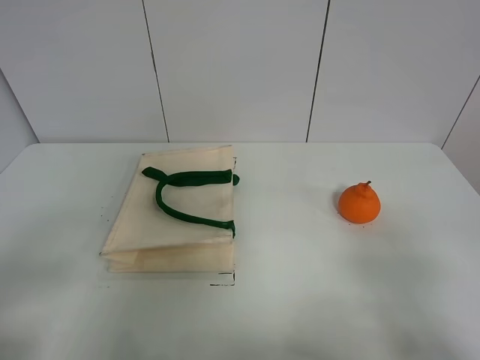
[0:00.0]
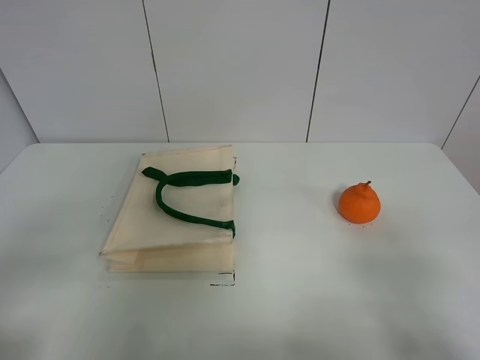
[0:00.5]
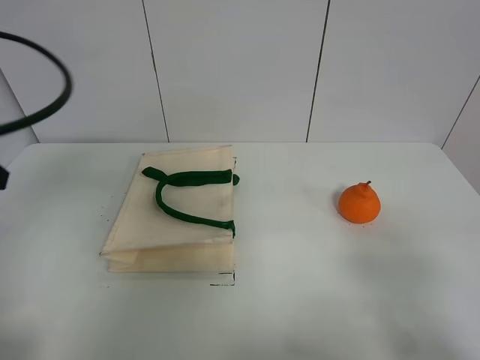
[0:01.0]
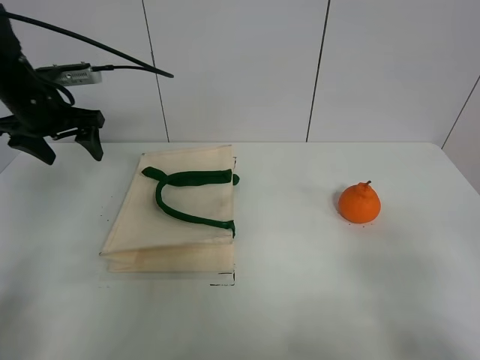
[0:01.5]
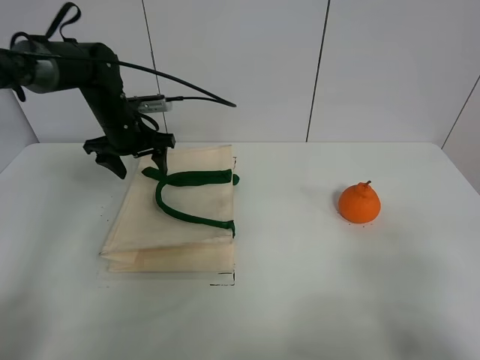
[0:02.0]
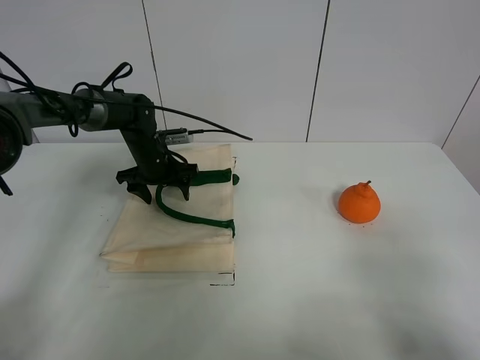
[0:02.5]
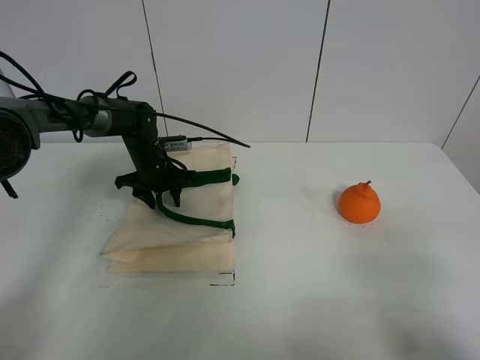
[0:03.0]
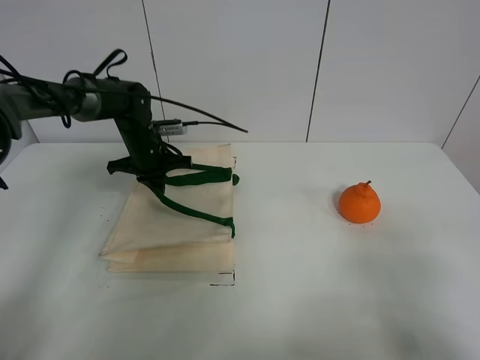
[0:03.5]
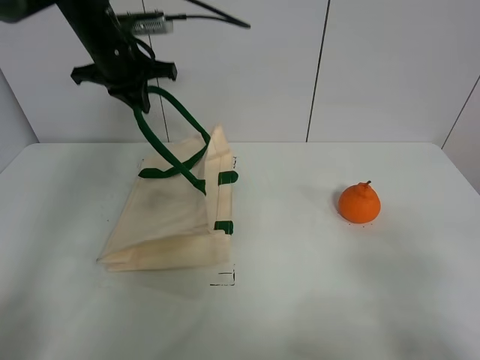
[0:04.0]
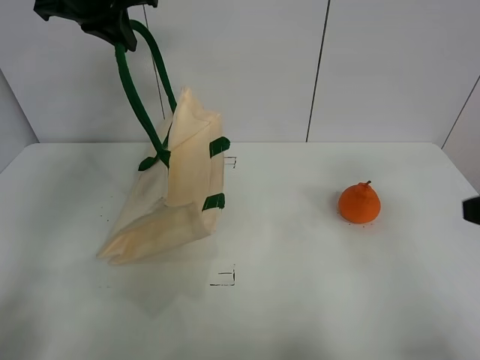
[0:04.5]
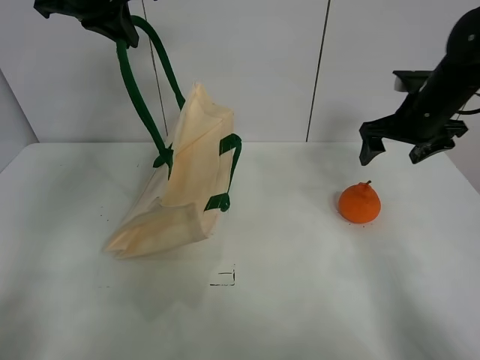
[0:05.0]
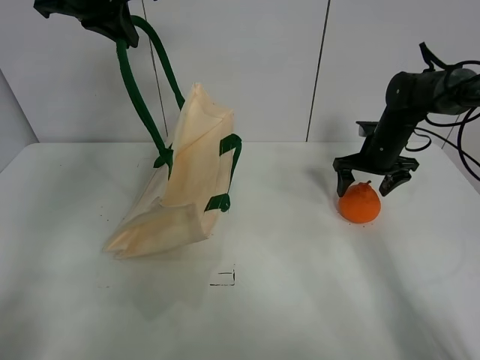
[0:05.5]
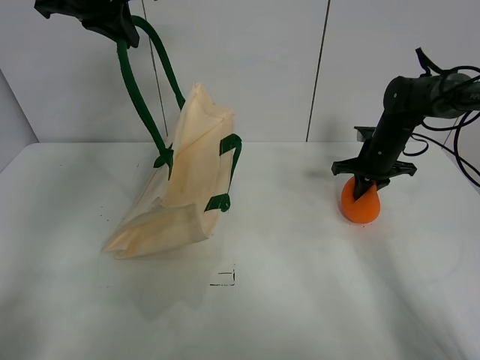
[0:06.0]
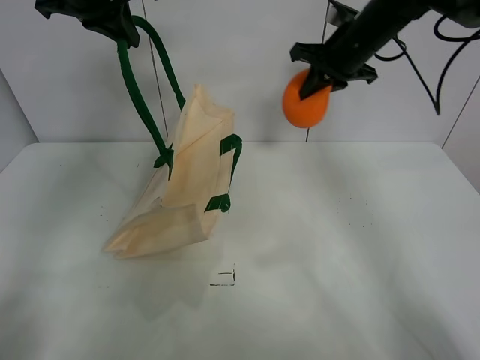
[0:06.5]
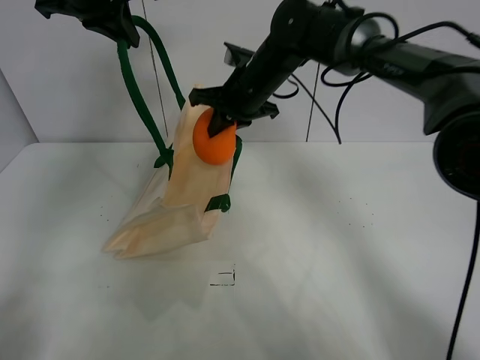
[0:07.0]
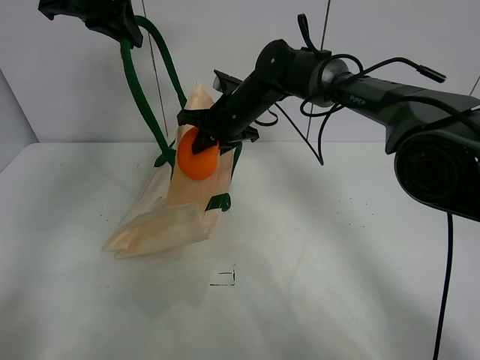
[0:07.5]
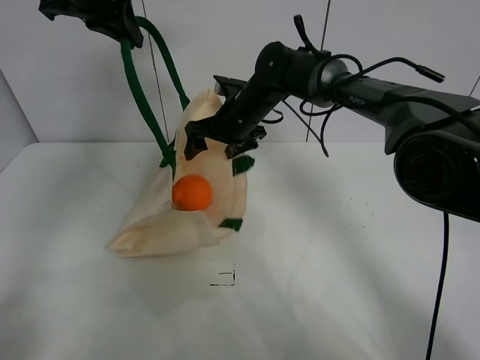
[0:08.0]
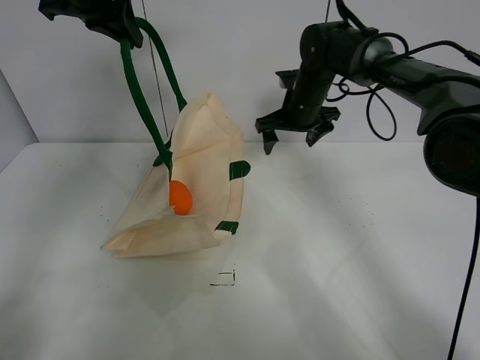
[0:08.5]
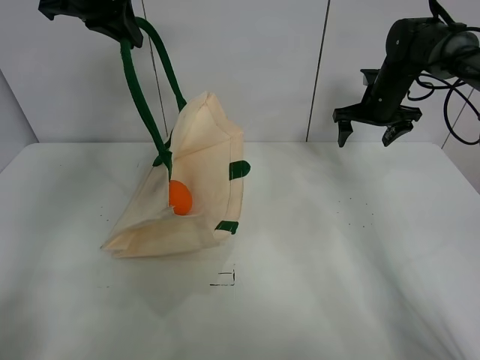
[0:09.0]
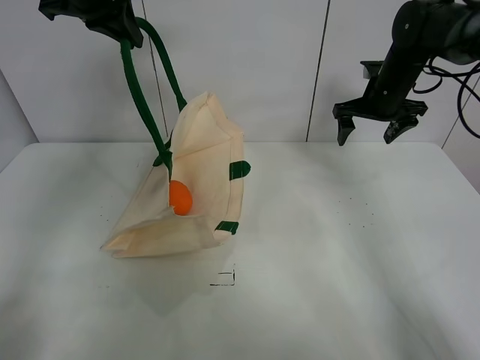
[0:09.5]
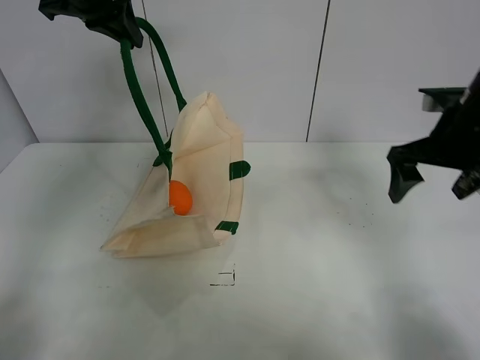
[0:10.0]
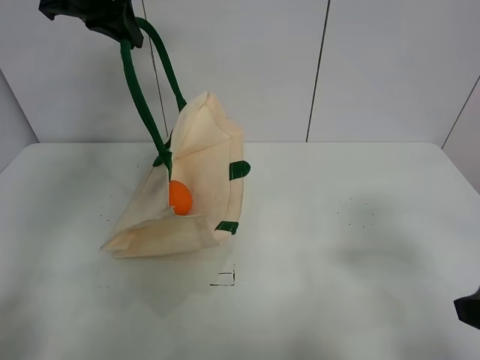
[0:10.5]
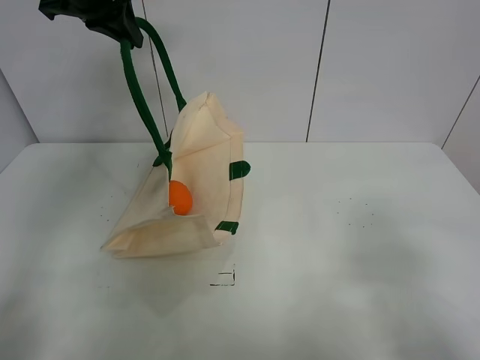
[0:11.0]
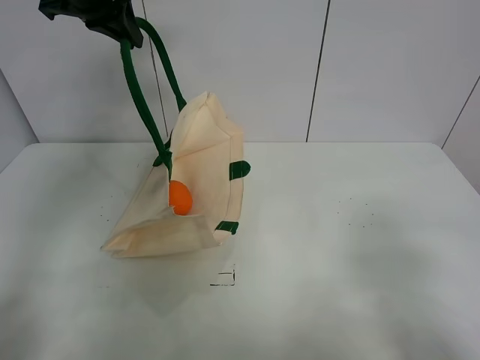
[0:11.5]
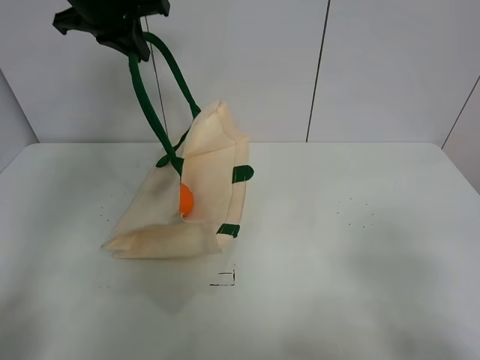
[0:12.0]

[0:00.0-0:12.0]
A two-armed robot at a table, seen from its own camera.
Task of the whole recording: open the white linen bag and put the orange in the bag.
Step, 0.0 to 4.0 s: Lift the handbag with left gripper.
Step, 4.5 to 5.5 s: Grasp the orange with right gripper.
Step, 6.0 to 8.0 s: Place the orange in the handbag with right gripper.
0.0 to 2.0 s: The left gripper moves forward, about 40 cm.
2.0 to 4.0 s: The left gripper is displaced upward by about 15 cm, and closes.
4.0 to 6.0 s: The right gripper travels forward by some 50 cm, and closes up, while the left gripper shifts some 10 cm upward.
6.0 to 8.0 s: The right gripper moves to the left, approximately 25 cm, and opens up.
8.0 to 10.0 s: The right gripper is displaced to the right and backward by roughly 30 cm.
10.0 to 12.0 s: The right gripper moves backward, about 25 cm.

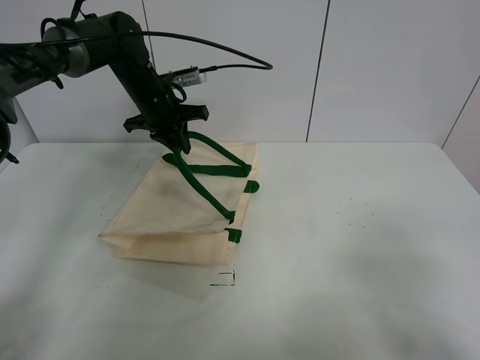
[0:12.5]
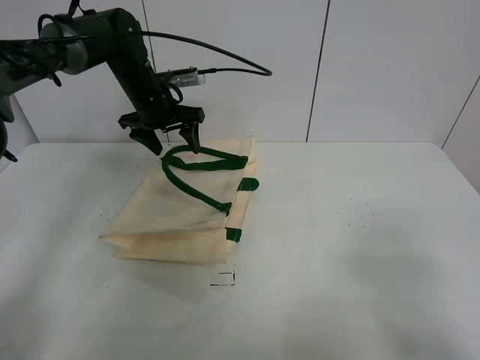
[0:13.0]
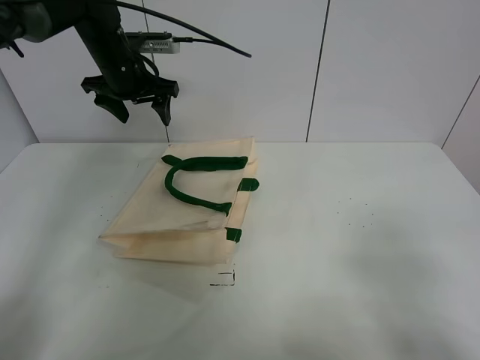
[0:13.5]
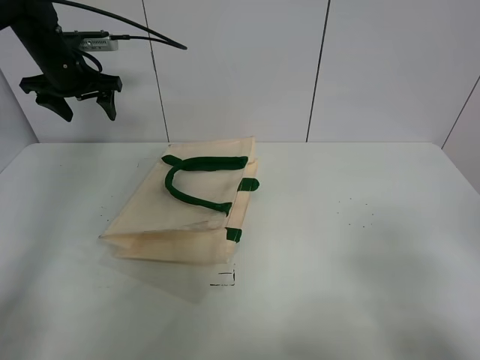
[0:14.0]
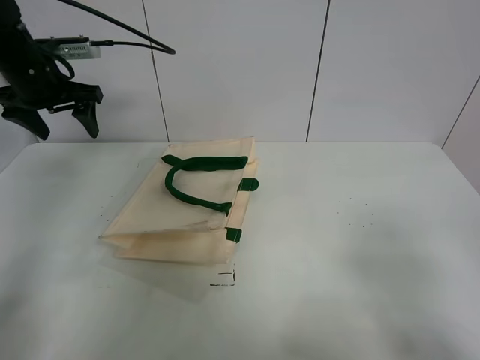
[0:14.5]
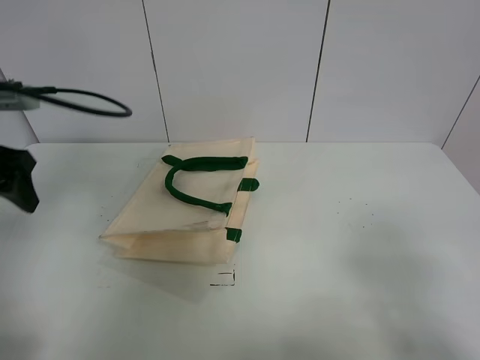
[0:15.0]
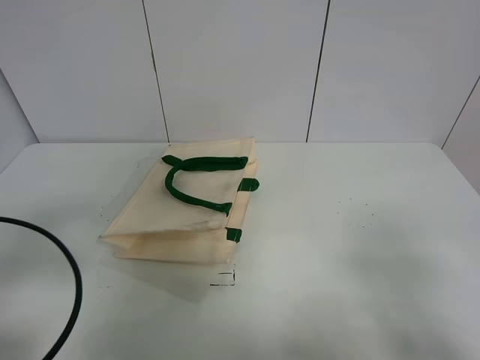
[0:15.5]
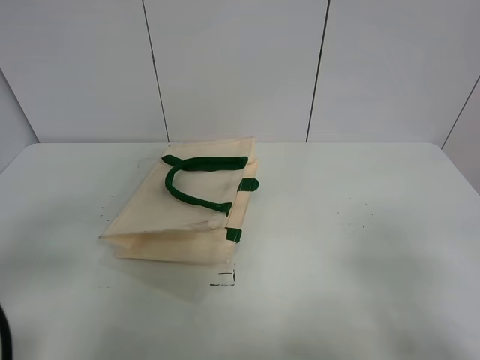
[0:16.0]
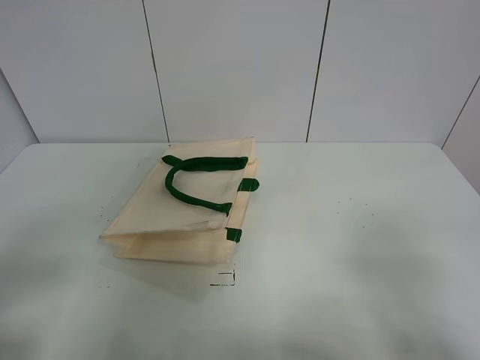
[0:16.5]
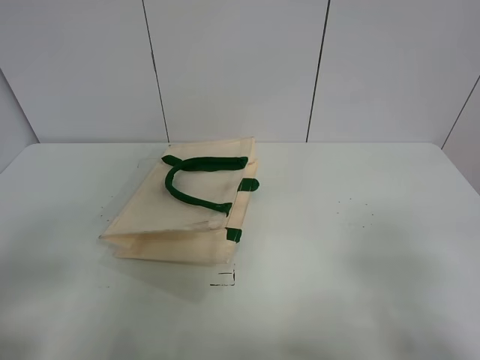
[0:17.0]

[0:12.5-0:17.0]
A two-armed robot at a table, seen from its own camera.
Task of the whole recording: open the white linen bag and put the orange in the bag.
12.5 to 14.5 s: The left gripper is displaced to the left, backward and upward by about 20 cm, and opens its fingers.
14.5 to 17.0 s: The left gripper moves backward, some 40 cm.

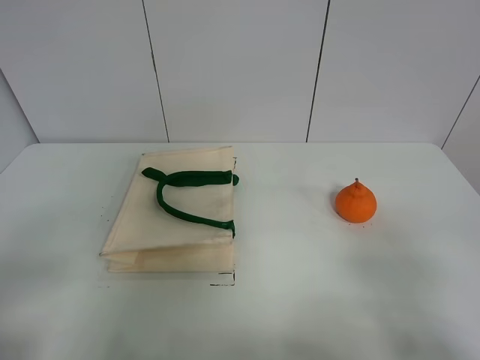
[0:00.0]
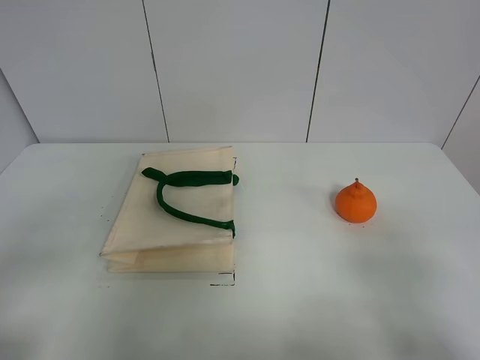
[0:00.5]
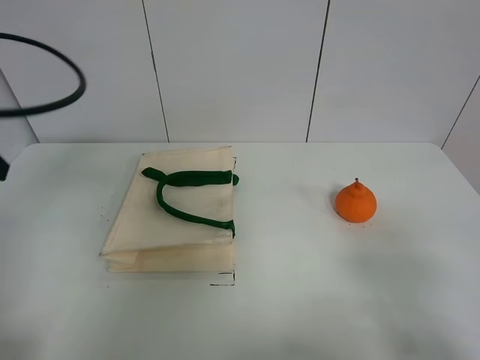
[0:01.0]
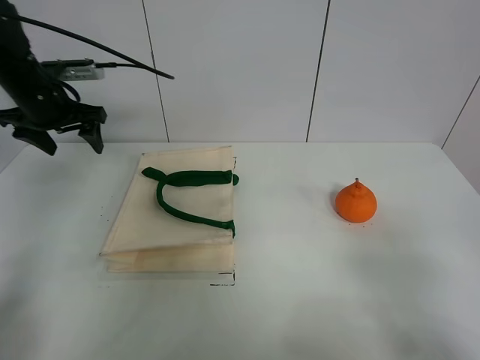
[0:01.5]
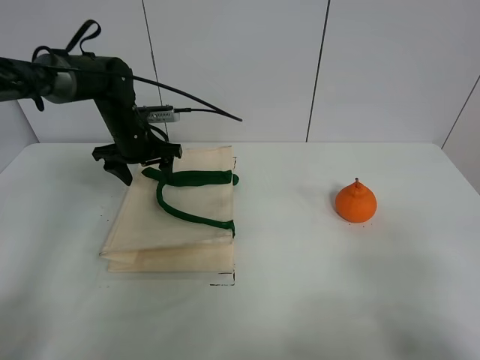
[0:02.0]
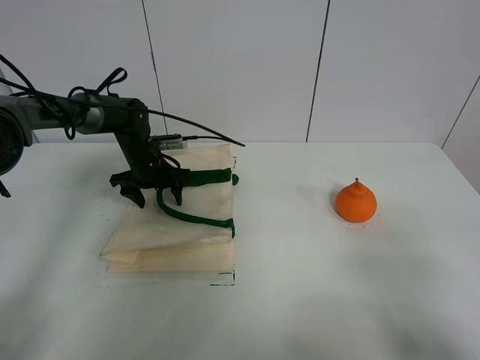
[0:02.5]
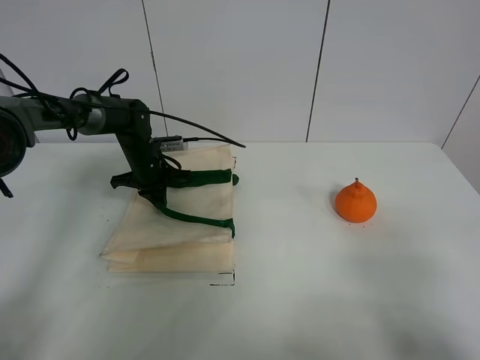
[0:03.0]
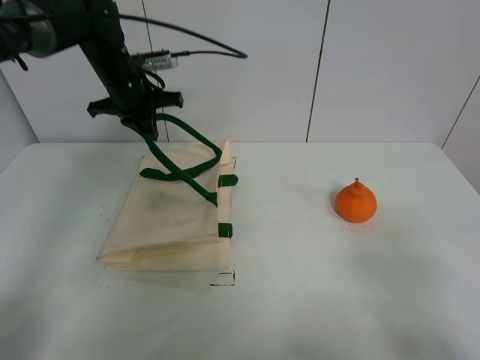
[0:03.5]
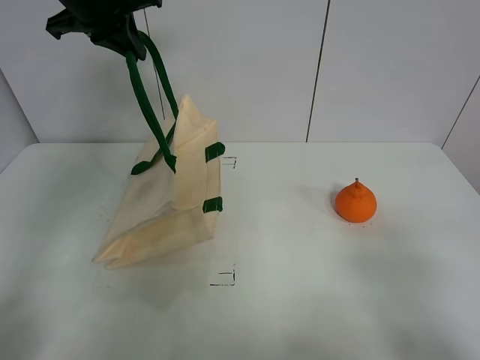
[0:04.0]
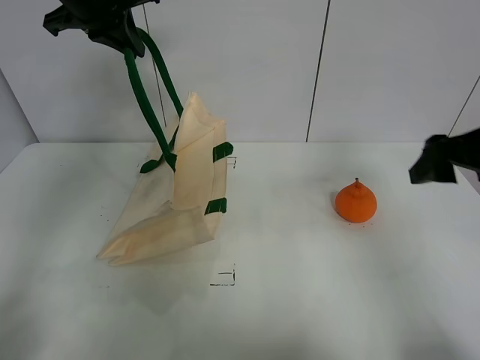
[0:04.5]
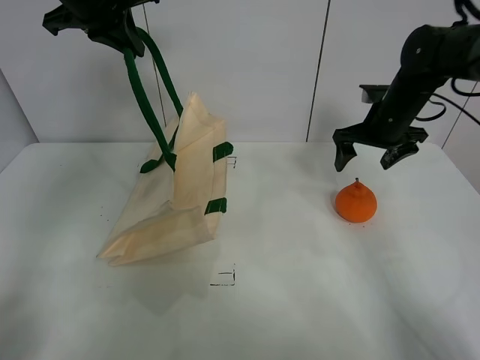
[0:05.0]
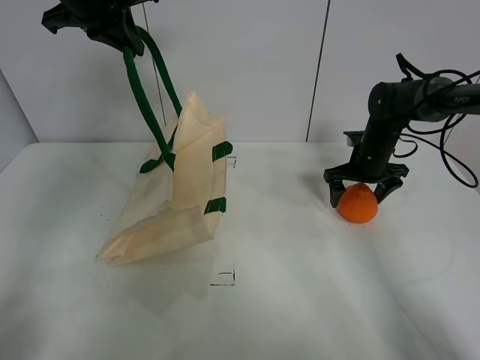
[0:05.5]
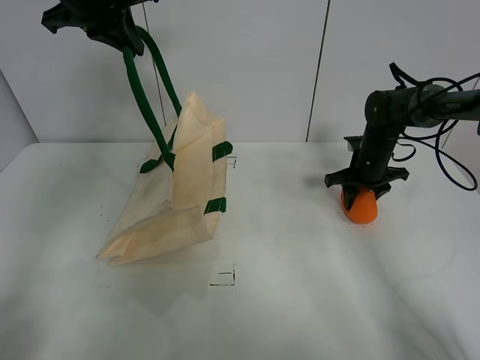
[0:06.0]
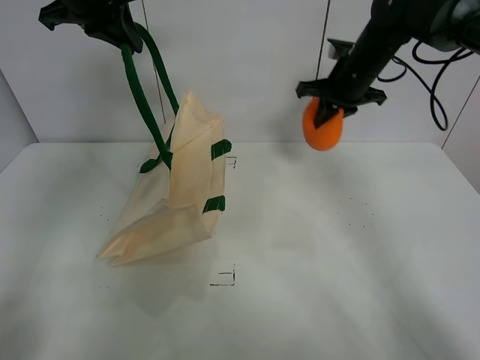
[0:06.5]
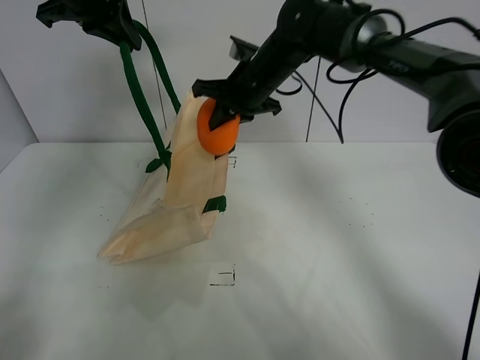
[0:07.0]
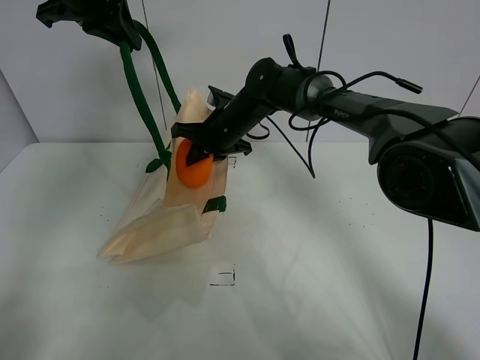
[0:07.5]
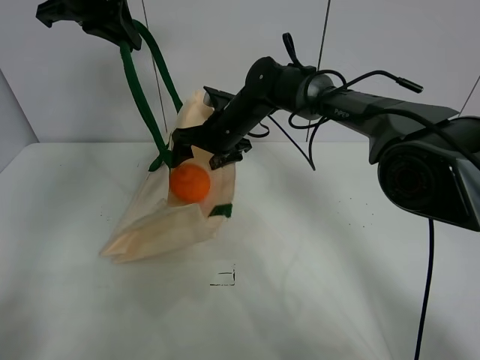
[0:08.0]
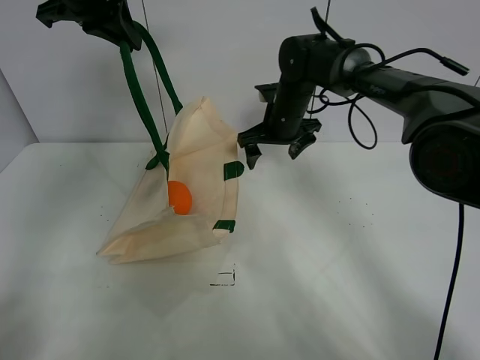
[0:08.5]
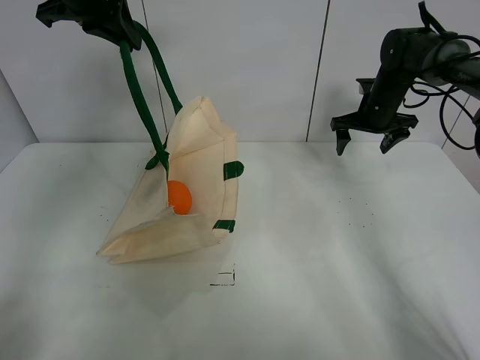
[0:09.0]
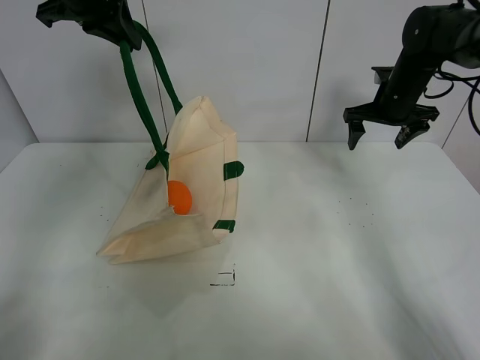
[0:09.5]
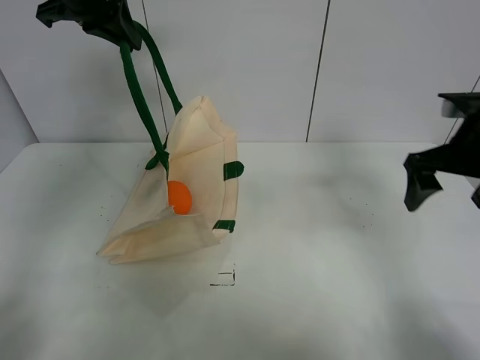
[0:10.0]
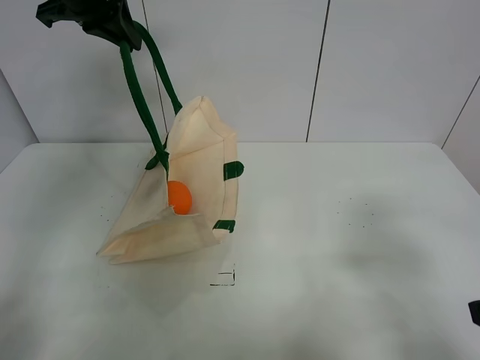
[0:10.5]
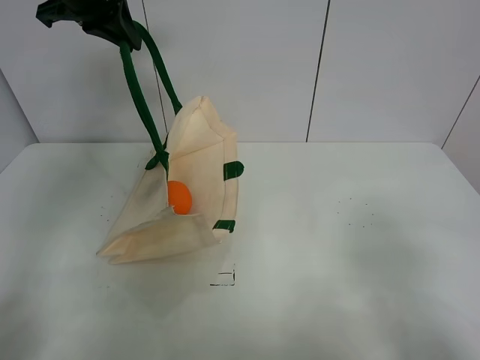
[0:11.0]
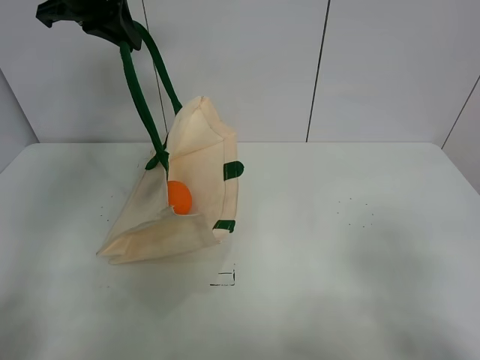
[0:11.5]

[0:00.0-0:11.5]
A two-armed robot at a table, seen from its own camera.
Task of the whole recording: open the white linen bag and put the orange in the bag.
Step, 0.0 to 4.0 s: Lift the handbag with left gripper.
Step, 4.5 to 6.0 s: Grasp the orange with right gripper.
Step, 6.5 to 8.0 s: Place the orange in the handbag with right gripper.
0.0 to 2.0 s: The left gripper shifts approximately 50 cm forward.
2.0 to 4.0 s: The left gripper travels upward by roughly 25 cm, and closes its fingers.
4.0 to 6.0 s: The right gripper shifts about 40 cm forward, and closes.
6.0 to 7.5 s: The right gripper travels to the left by approximately 25 cm.
7.5 to 9.5 s: The right gripper moves to the right, some 30 cm, and opens its fingers.
9.5 to 11.5 s: The right gripper is displaced backward by about 50 cm.
